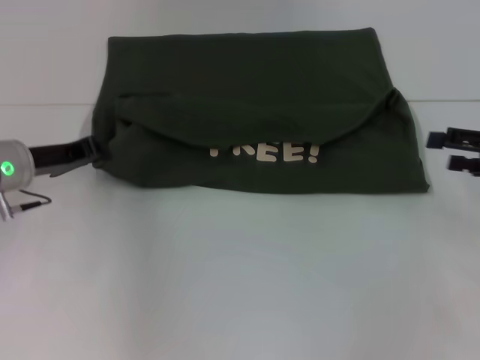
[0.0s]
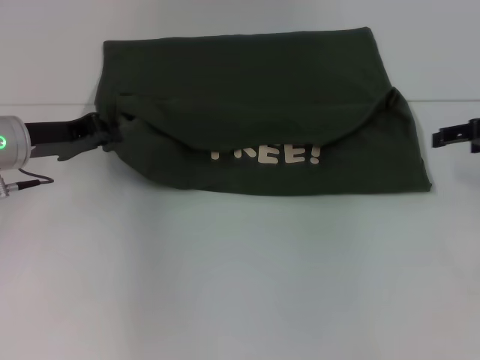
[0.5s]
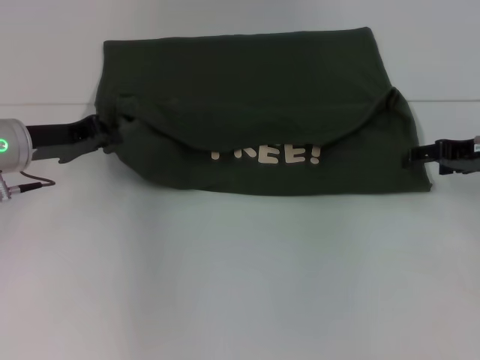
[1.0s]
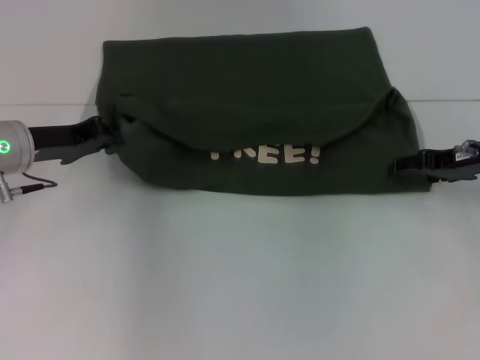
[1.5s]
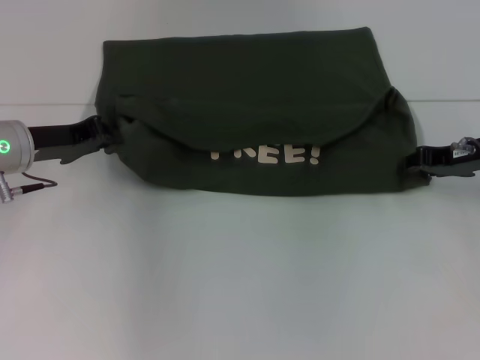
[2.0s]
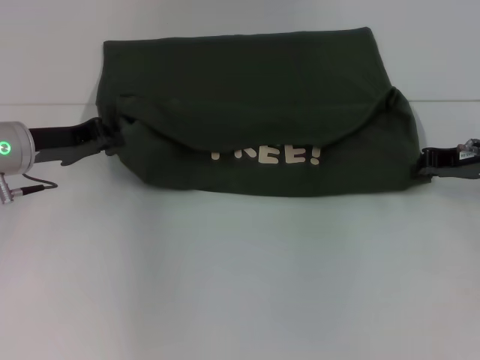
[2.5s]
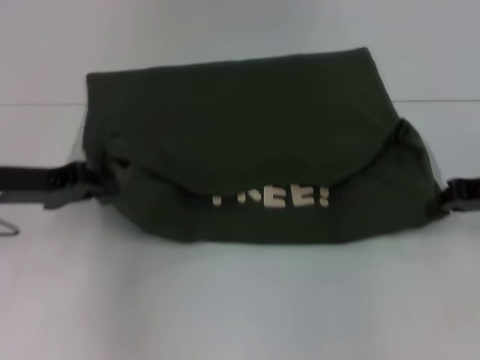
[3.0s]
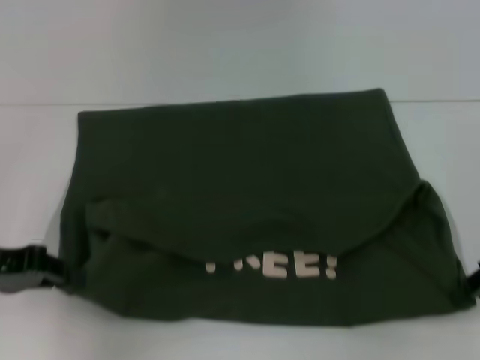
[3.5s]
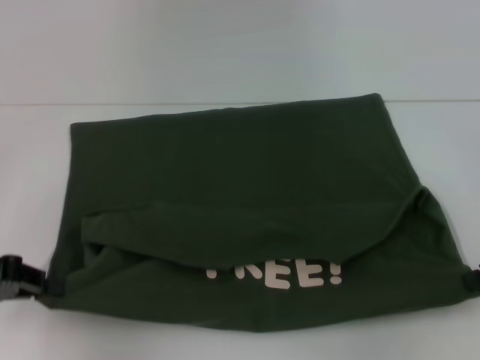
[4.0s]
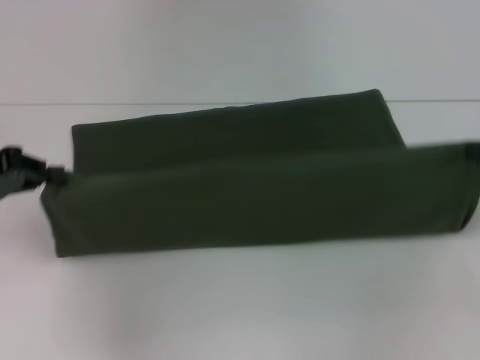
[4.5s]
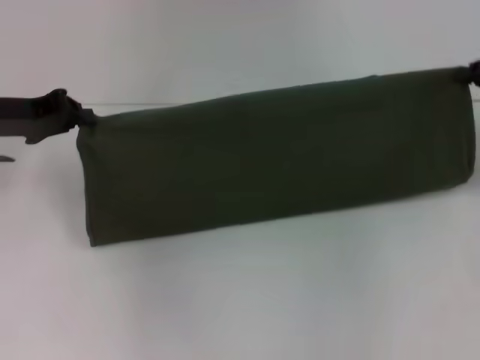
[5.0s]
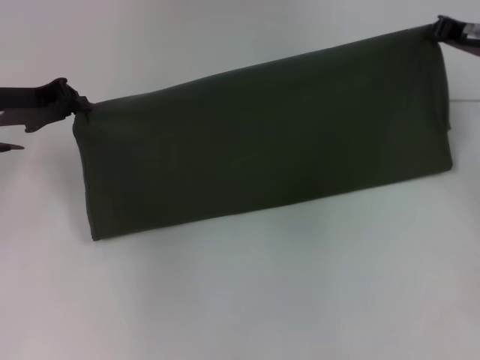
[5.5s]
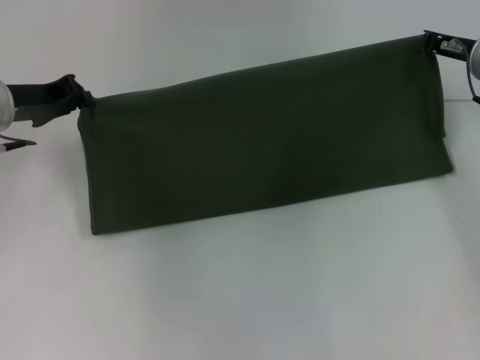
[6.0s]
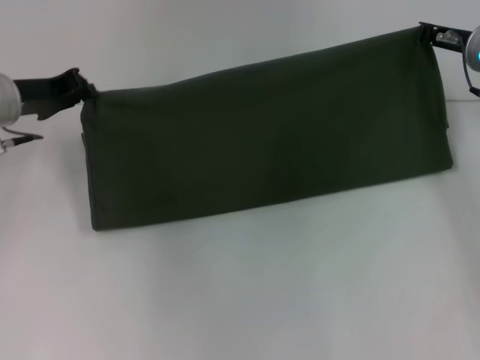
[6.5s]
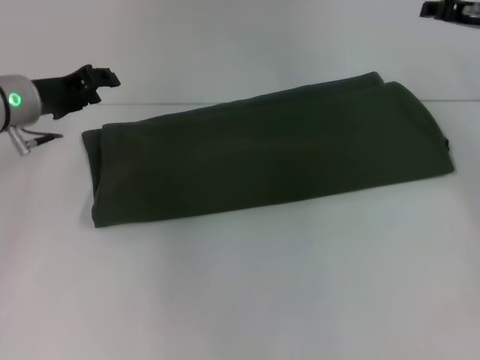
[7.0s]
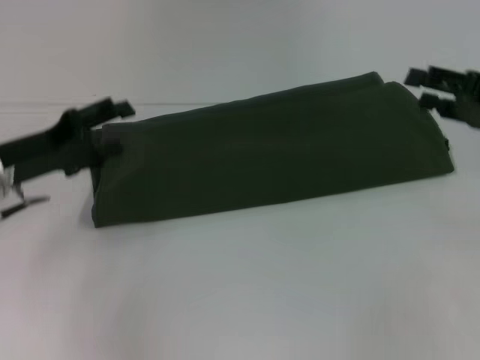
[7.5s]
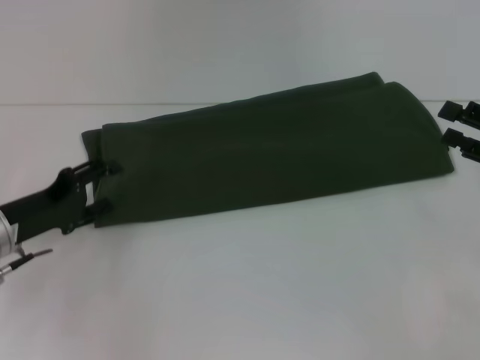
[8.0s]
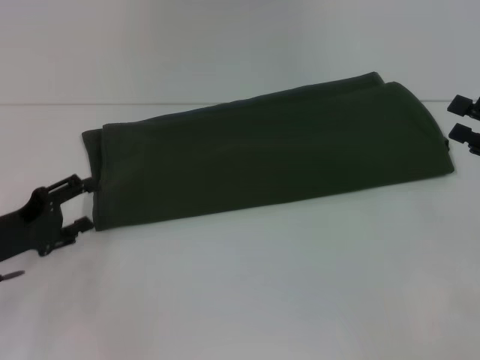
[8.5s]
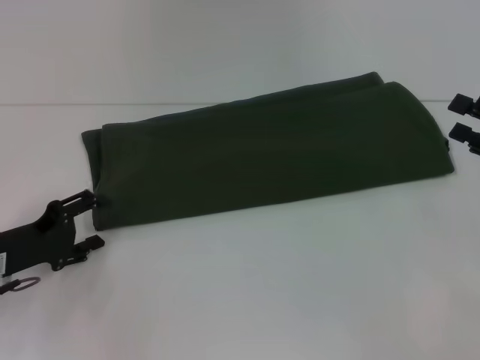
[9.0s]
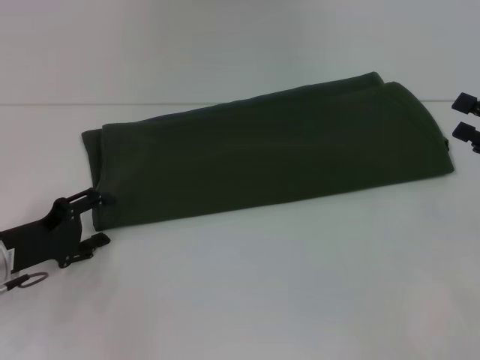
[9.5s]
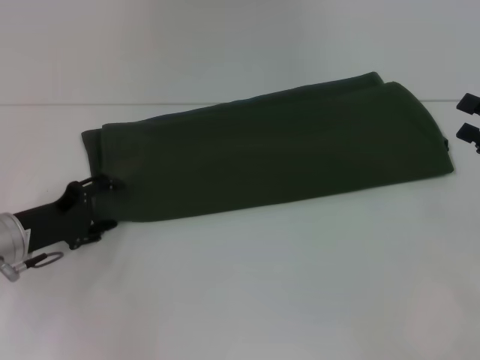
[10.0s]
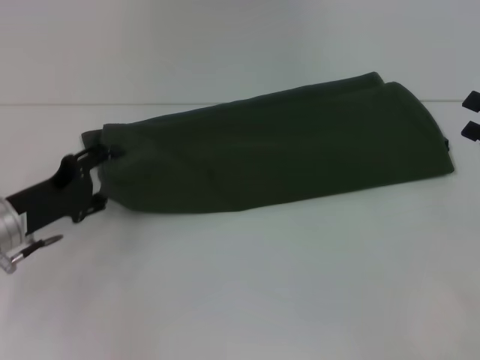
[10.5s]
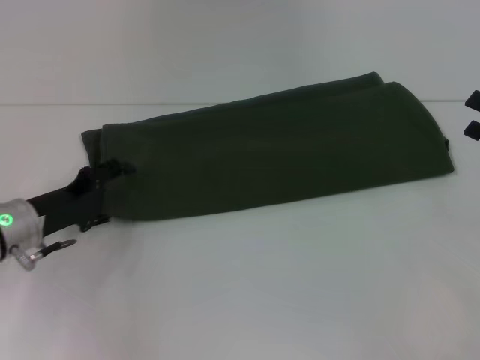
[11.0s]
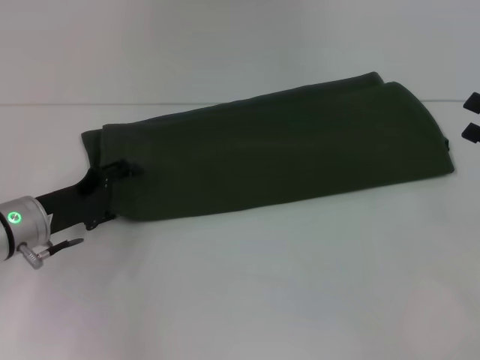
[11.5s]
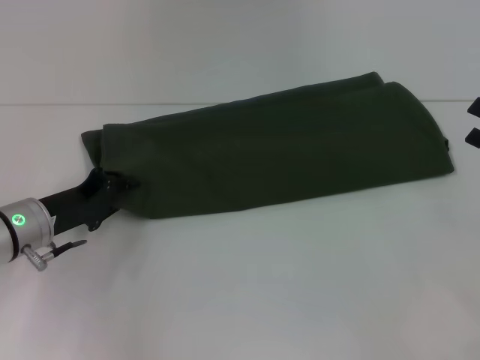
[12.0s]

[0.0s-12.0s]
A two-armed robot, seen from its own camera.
Step, 0.0s to 3.5s: Pull the clothes with your left hand.
Step, 0.0s to 3.5s: Pull the clothes with your right hand.
Step, 4.0s to 6.5s: Fold the clothes with your right hand.
0.0s to 2.0s: The right gripper travels to the left and forward by roughly 10 cm, and closes up.
2.0s to 4.0s: The right gripper is displaced backward and to the right by some 10 cm, and closes; the left gripper moves backward and to the left, about 15 cm.
4.0s to 6.0s: The left gripper travels forward by about 15 cm. Meanwhile the right gripper travels forward and to the left by some 20 cm.
6.0s to 8.0s: The left gripper goes roughly 15 cm backward and downward, and opens up, while the right gripper travels backward and to the right by about 20 cm, and opens.
8.0s to 10.0s: The grippers stay close to where they were, moving slightly.
10.0s to 12.0s: The left gripper closes its fingers.

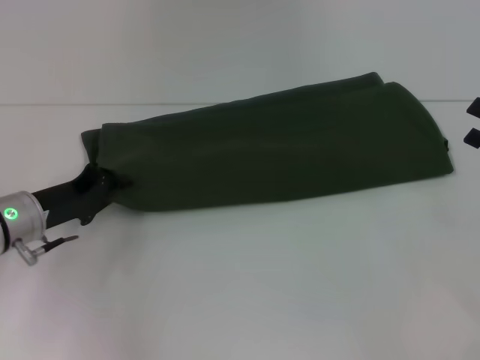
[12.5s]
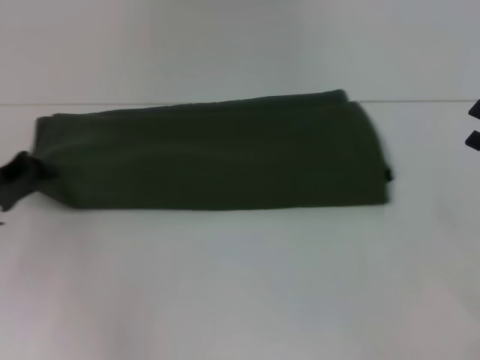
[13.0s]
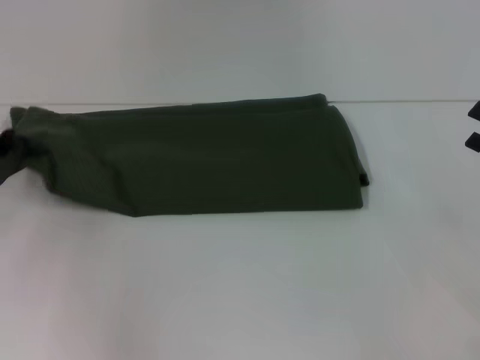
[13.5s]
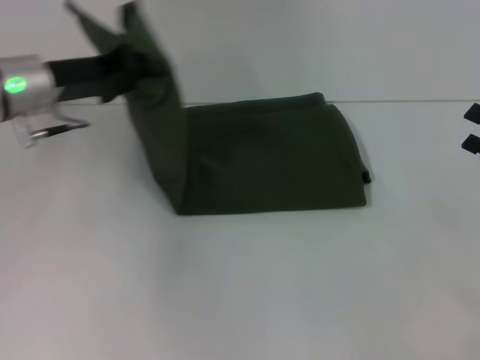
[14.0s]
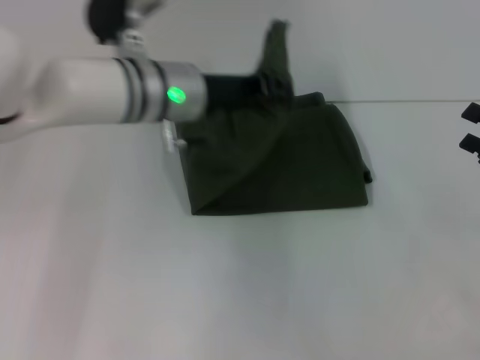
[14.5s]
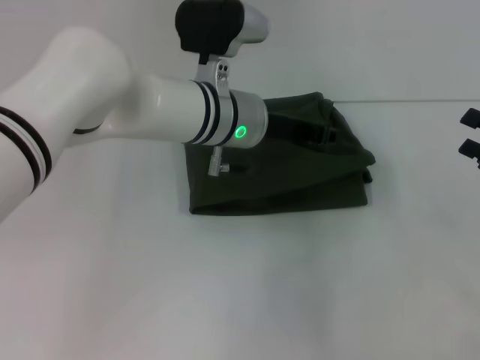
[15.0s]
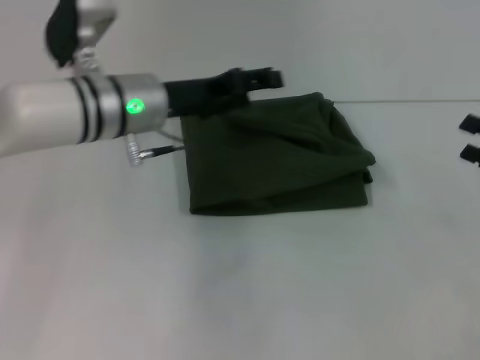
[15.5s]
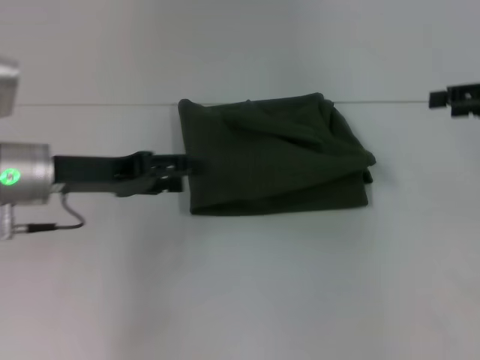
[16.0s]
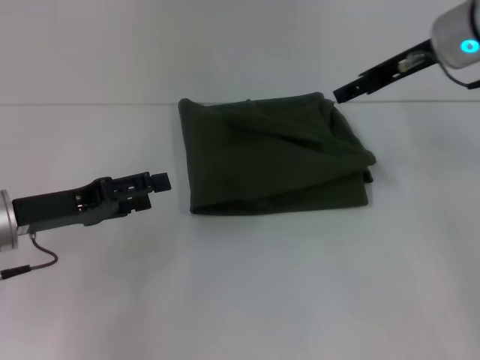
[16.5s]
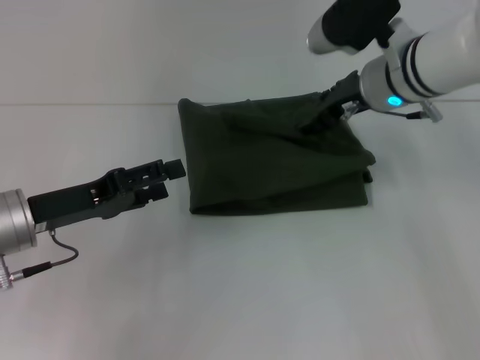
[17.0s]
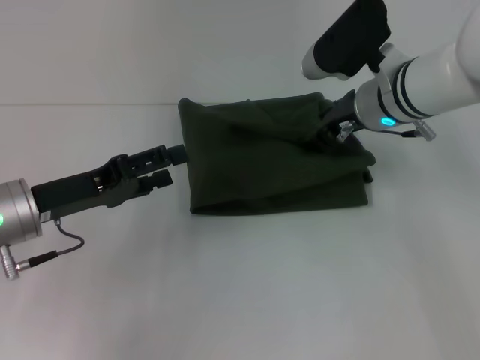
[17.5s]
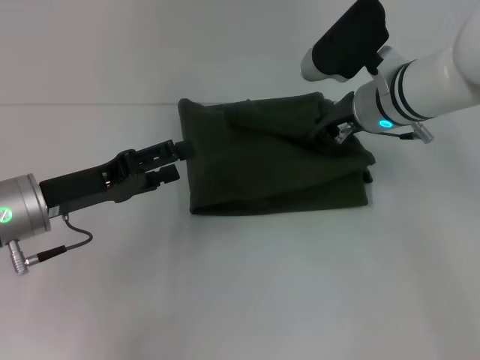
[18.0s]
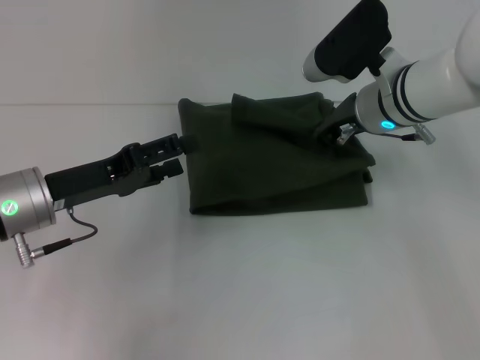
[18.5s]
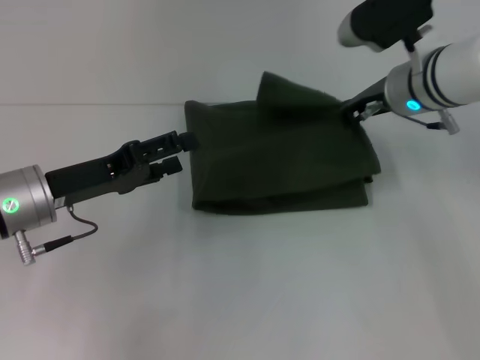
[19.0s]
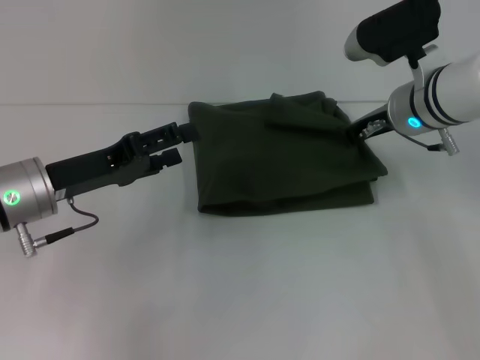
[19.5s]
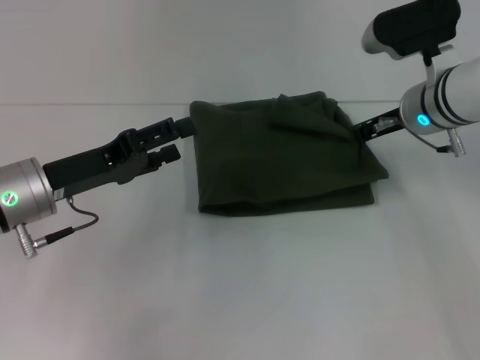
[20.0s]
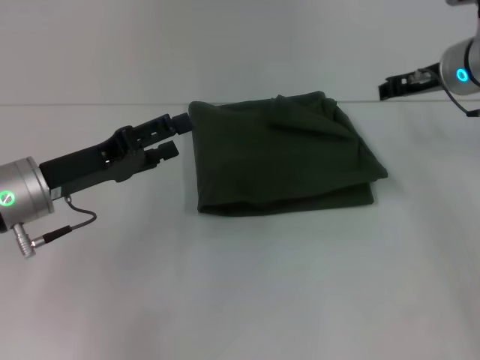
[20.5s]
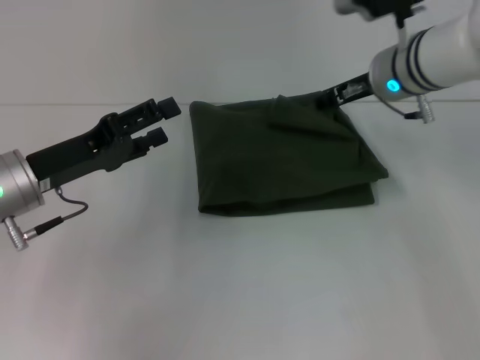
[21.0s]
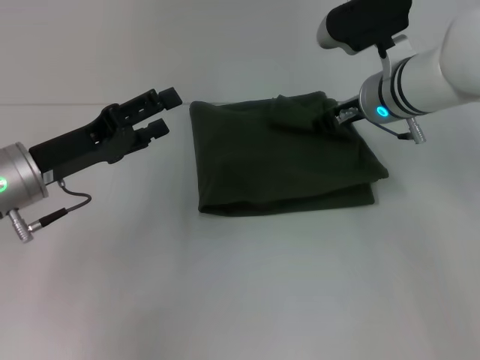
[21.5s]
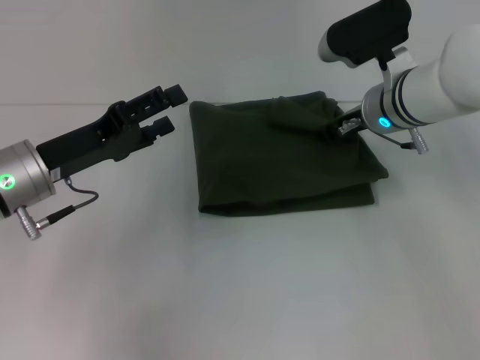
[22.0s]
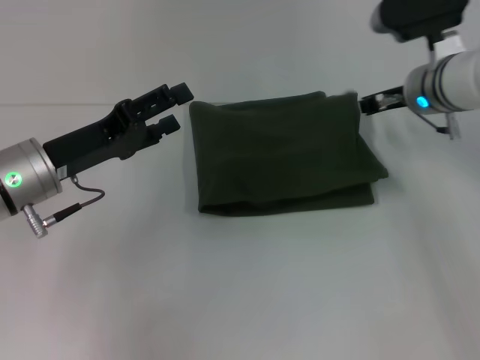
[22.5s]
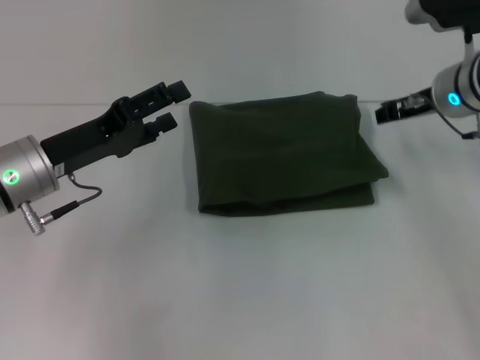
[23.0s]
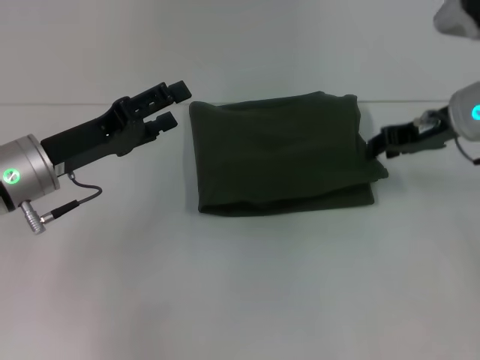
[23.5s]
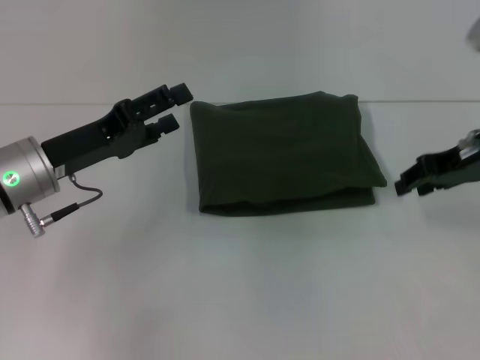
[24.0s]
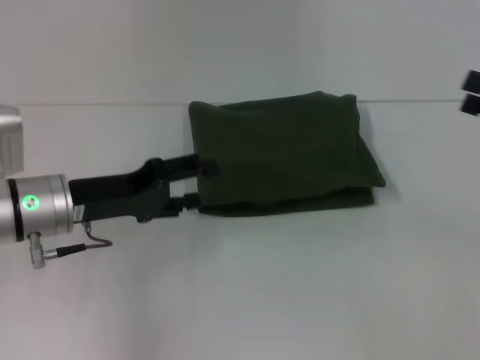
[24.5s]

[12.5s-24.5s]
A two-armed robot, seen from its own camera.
Step, 12.5s to 14.5s: Fold the clothes with your left hand.
12.5s to 14.5s: The left gripper travels to the right, upward and forward by about 20 cm.
14.5s to 16.5s: The right gripper goes approximately 25 cm to the left, forward and upward; the left gripper is displaced to the left and backward by approximately 20 cm, and opens up.
16.5s to 18.5s: The right gripper moves downward and to the left, about 10 cm, and closes its fingers.
18.5s to 20.5s: The right gripper heads to the right, covering some 10 cm.
22.5s to 24.5s: The right gripper moves to the right and backward, some 25 cm.

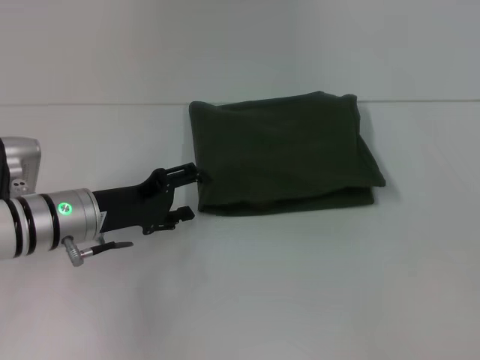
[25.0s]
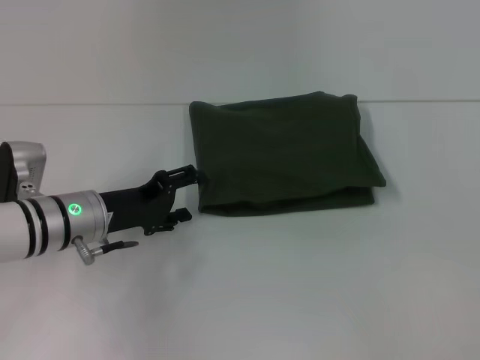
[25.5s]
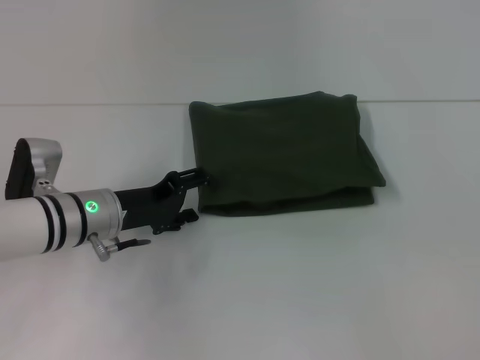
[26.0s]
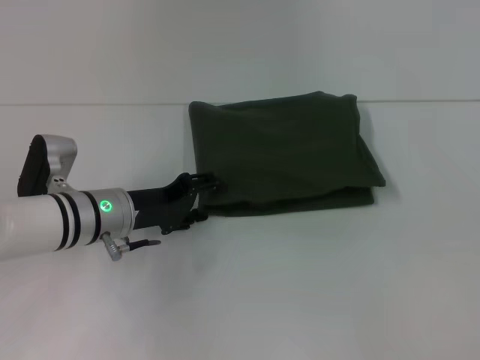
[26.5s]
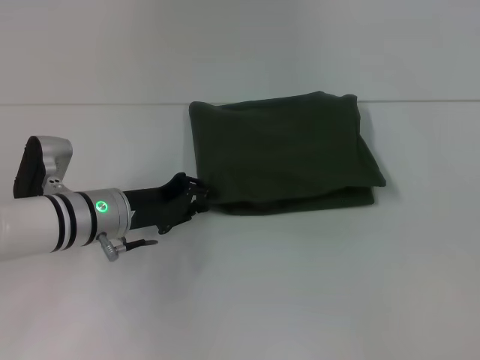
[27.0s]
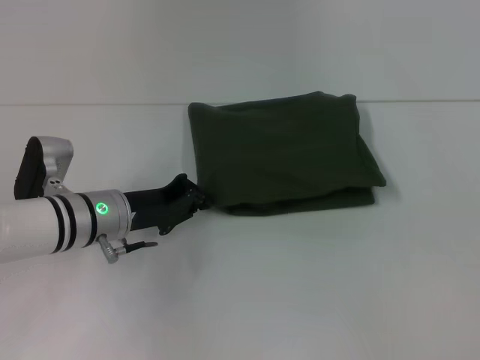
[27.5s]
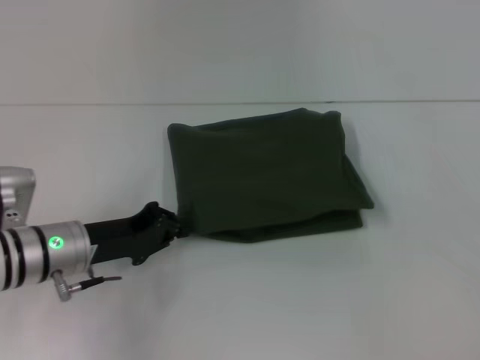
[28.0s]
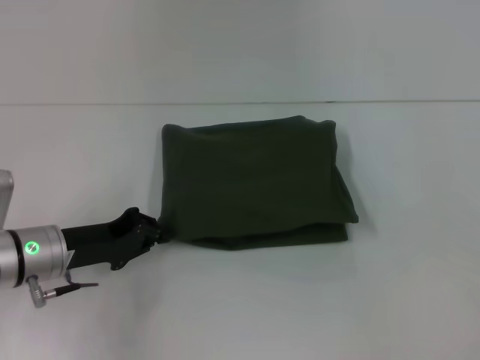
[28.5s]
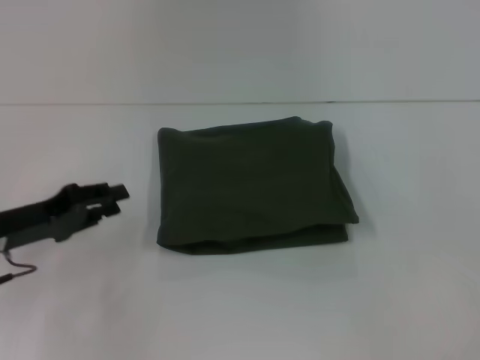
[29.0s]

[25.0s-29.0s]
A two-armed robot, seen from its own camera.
25.0s to 27.0s: The left gripper closes up.
27.0s to 29.0s: The left gripper heads to the left and backward, covering some 15 cm.
